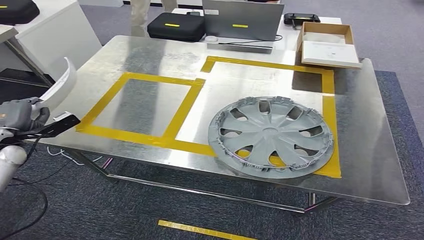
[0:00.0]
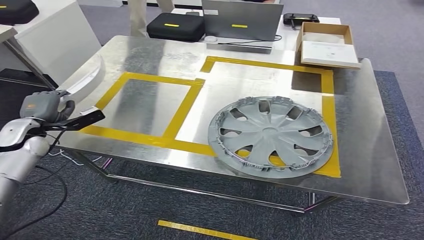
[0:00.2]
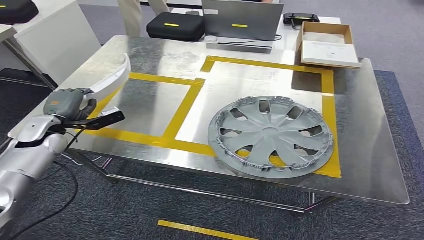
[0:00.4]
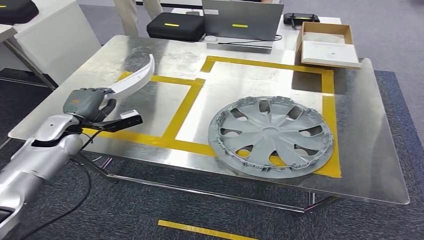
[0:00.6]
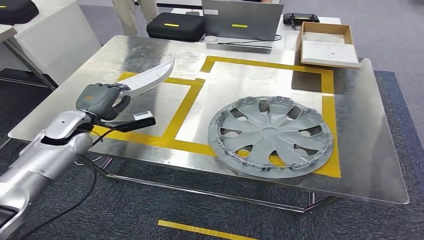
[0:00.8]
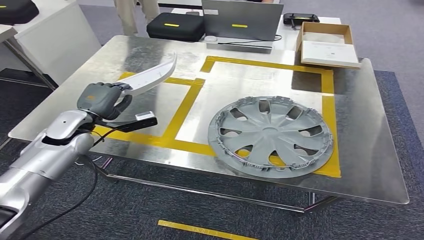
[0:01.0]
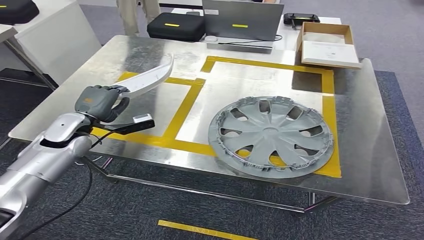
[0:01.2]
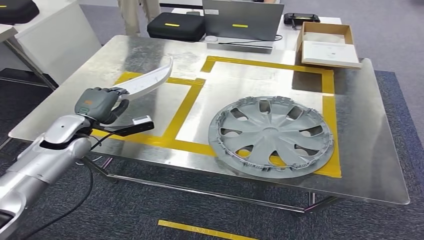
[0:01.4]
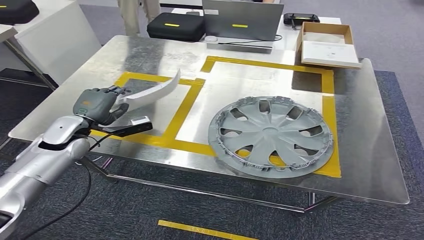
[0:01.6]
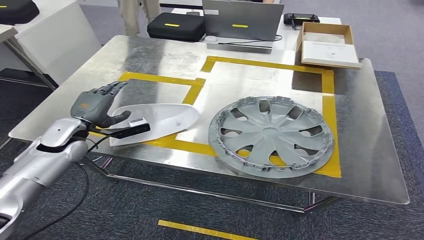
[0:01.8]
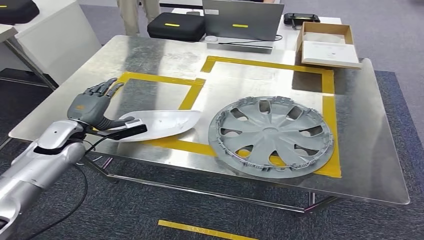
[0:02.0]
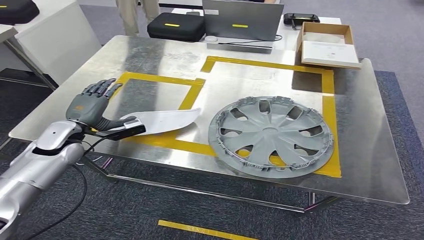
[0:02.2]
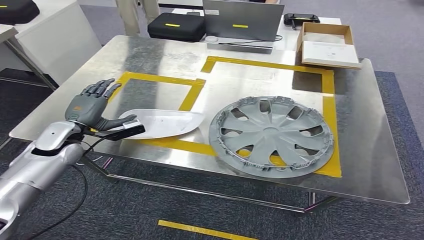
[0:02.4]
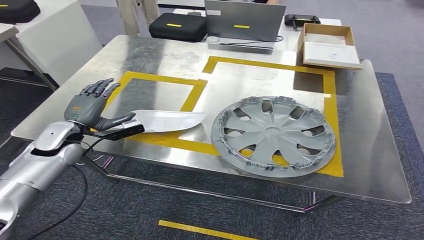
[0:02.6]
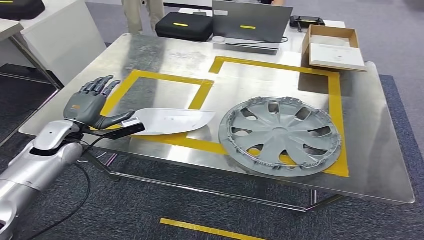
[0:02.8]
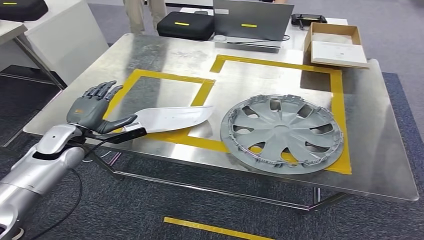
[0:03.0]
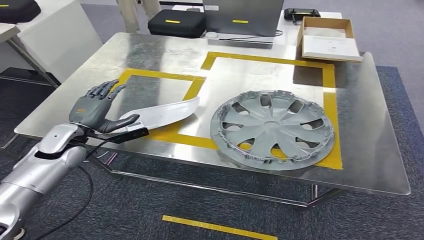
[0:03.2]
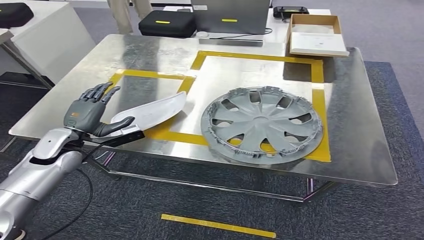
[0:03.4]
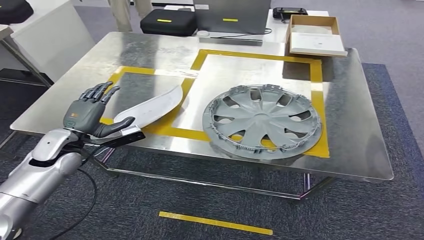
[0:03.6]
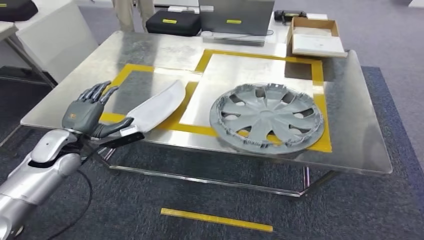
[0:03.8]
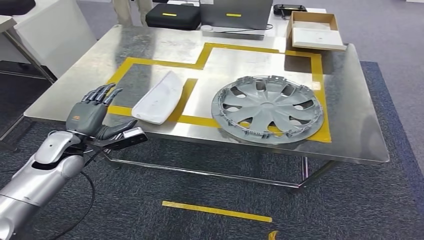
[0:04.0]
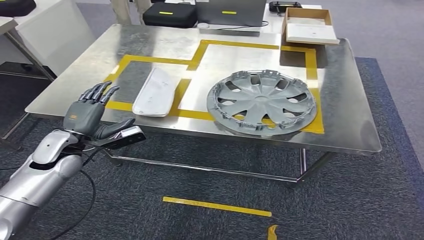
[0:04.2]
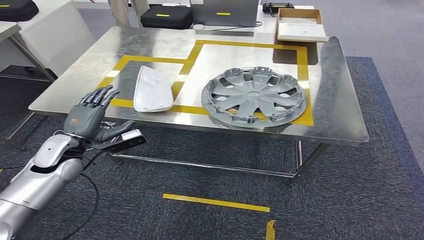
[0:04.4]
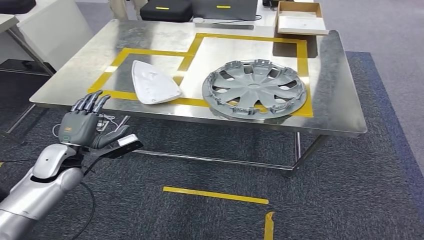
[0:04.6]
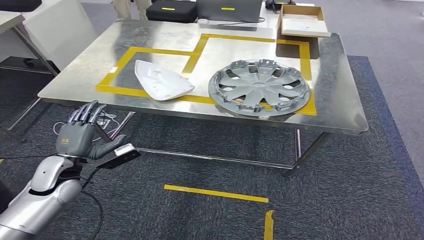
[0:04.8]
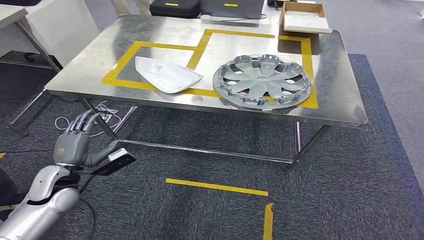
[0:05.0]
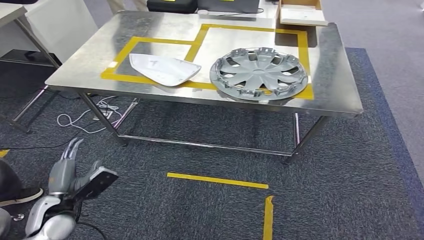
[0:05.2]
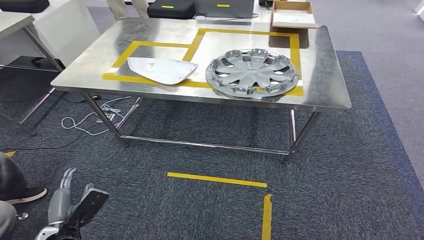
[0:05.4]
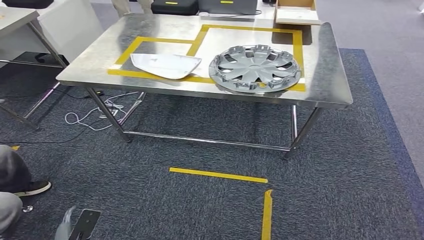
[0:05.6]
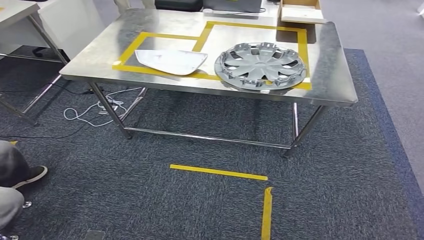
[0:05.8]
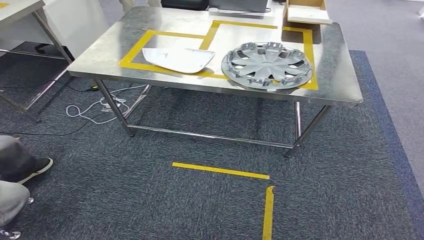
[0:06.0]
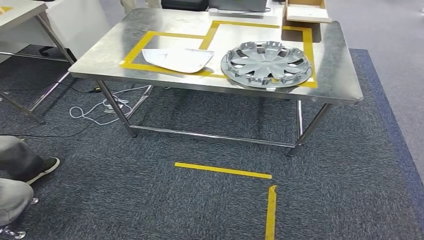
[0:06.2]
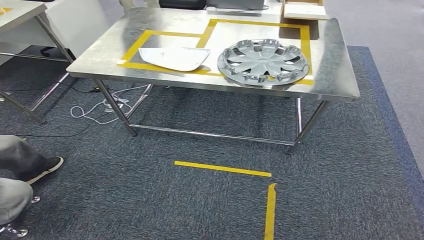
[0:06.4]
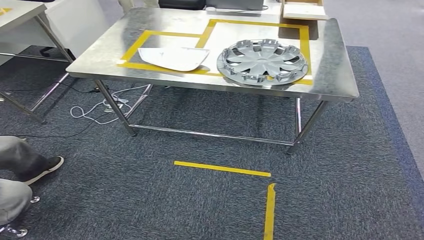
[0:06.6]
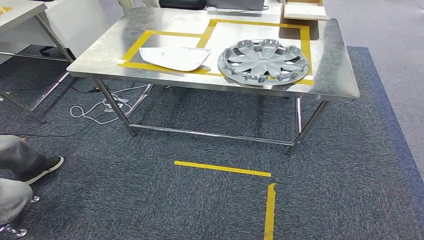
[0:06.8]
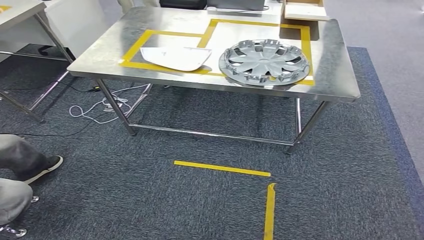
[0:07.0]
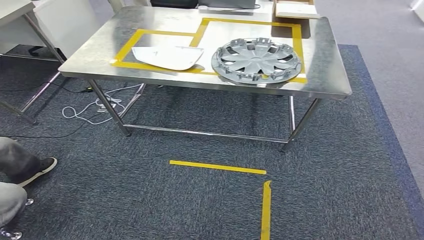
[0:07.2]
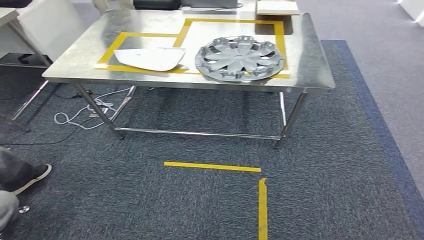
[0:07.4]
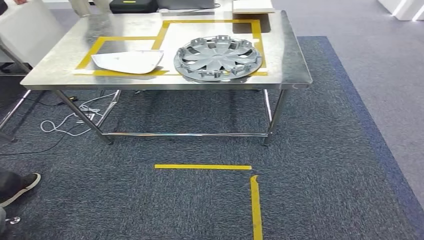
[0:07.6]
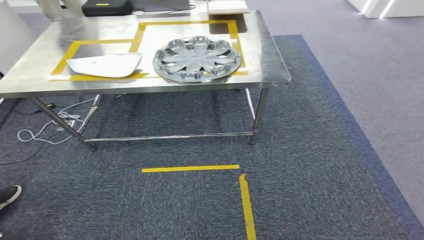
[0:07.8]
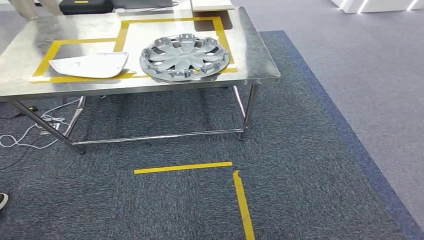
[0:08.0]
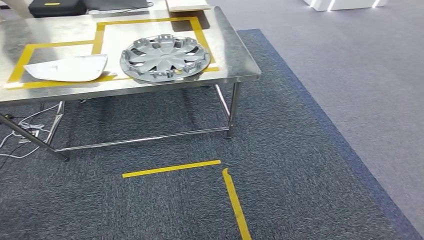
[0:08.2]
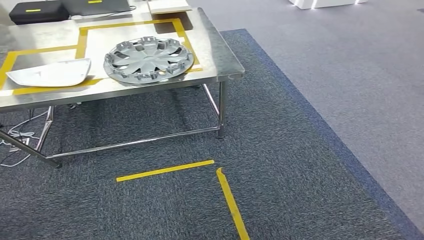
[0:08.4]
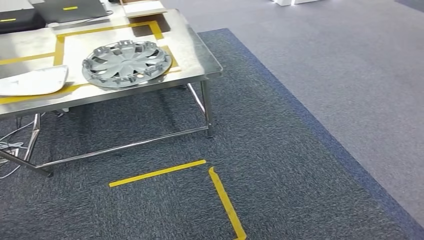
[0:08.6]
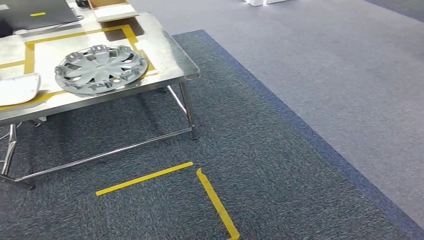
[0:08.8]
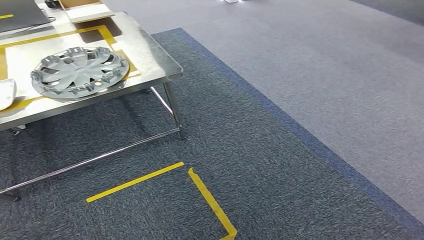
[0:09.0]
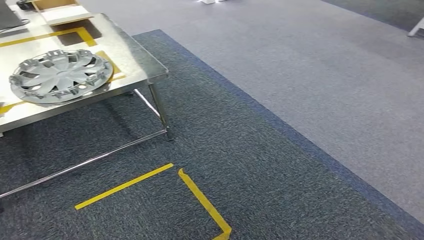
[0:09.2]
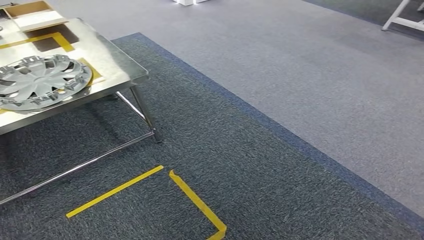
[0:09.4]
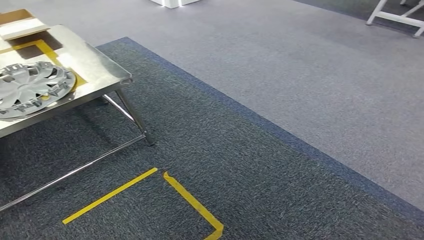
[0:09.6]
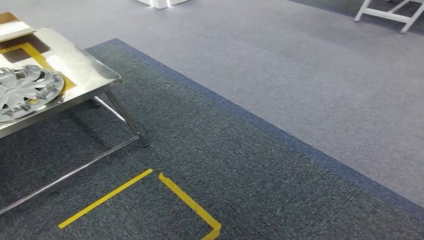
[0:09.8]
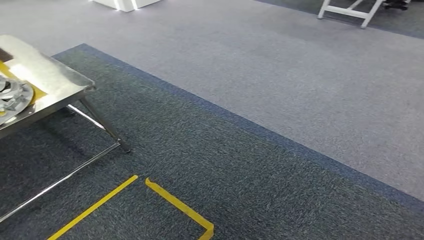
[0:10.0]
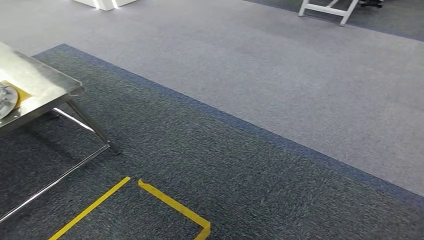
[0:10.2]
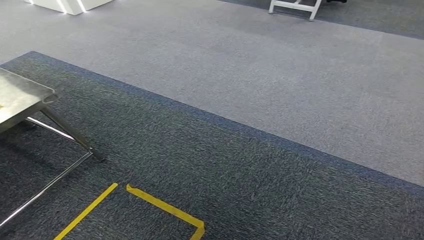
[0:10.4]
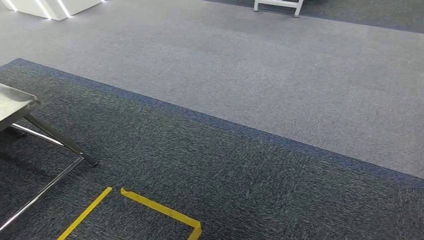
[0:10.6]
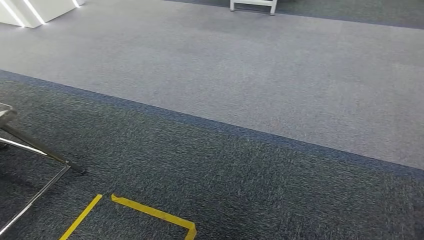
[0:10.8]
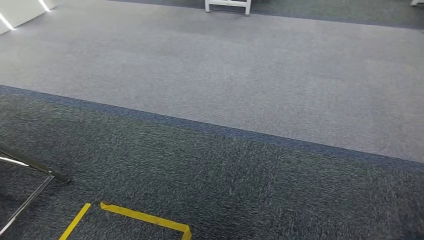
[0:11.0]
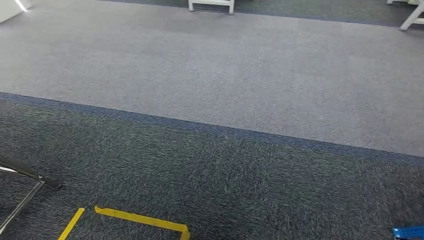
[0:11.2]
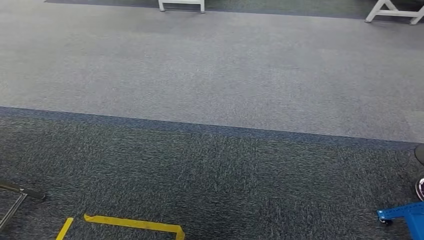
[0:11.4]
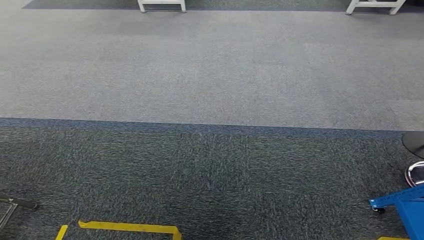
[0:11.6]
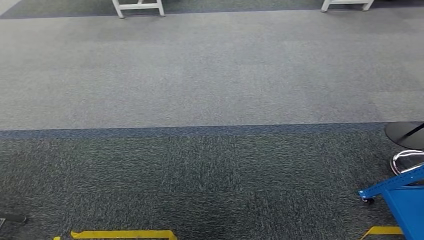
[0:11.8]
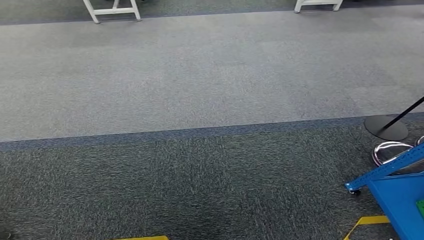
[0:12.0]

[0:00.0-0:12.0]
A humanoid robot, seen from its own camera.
Step, 0:00.0 to 0:03.8: Insert the small component into the corresponding slot on the workbench.
0:00.0 to 0:01.6: The left hand travels to the right by approximately 15 cm.

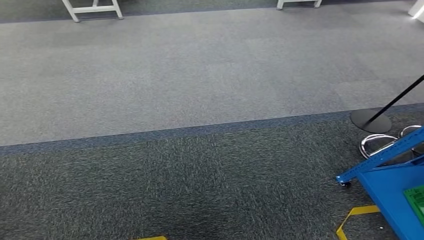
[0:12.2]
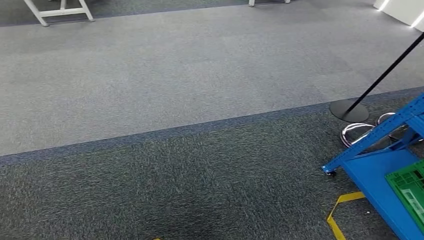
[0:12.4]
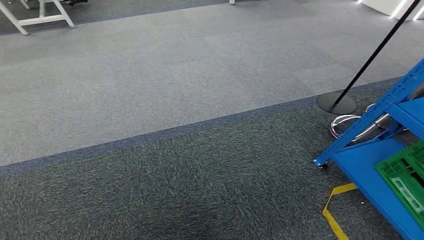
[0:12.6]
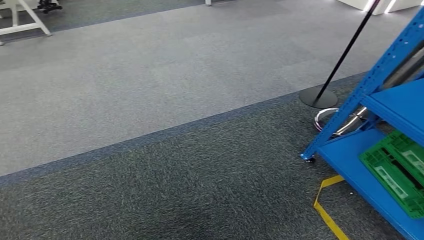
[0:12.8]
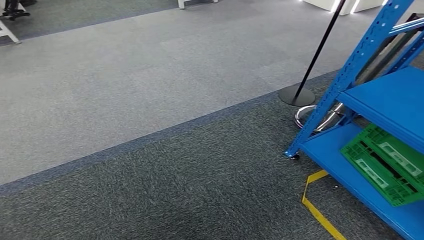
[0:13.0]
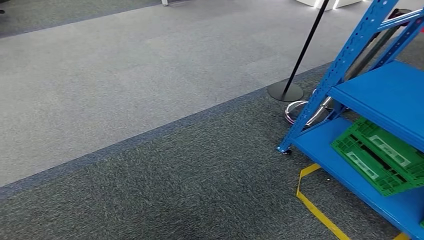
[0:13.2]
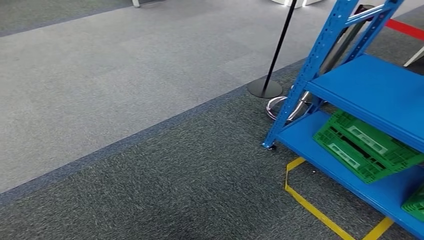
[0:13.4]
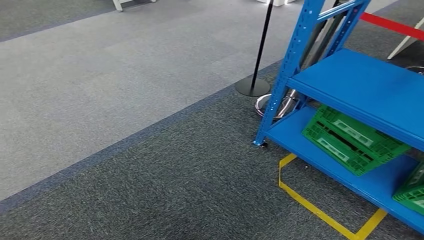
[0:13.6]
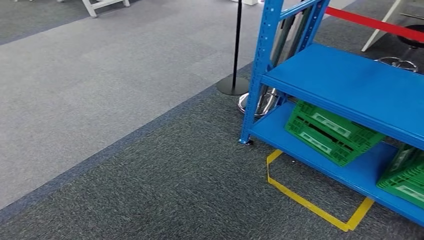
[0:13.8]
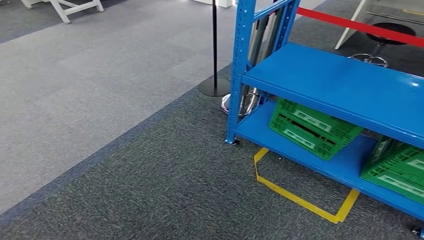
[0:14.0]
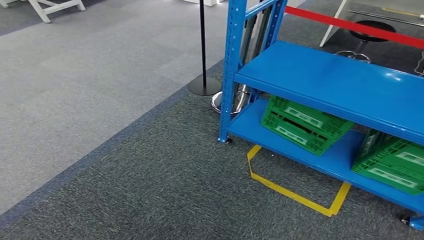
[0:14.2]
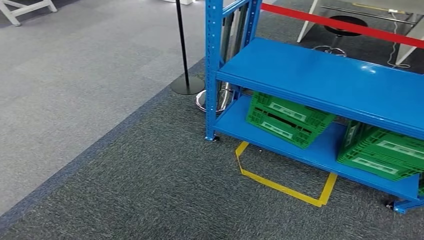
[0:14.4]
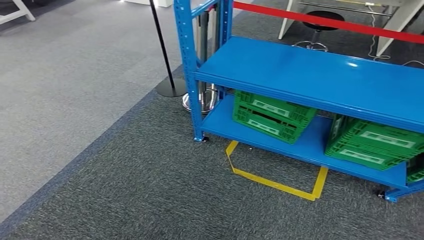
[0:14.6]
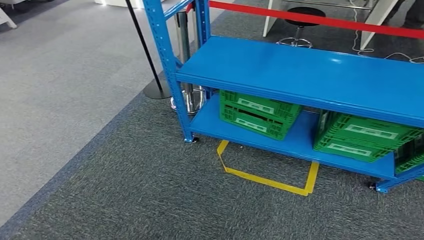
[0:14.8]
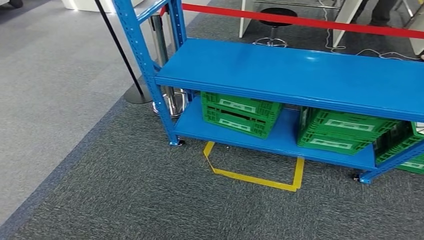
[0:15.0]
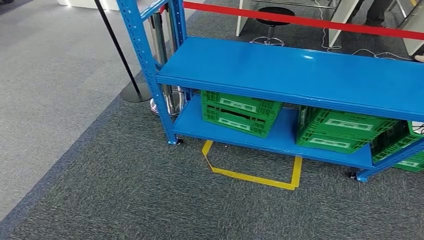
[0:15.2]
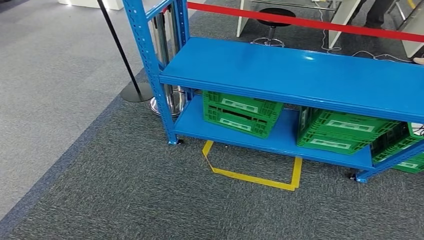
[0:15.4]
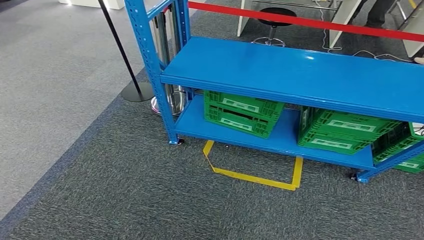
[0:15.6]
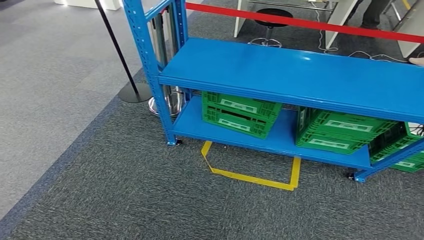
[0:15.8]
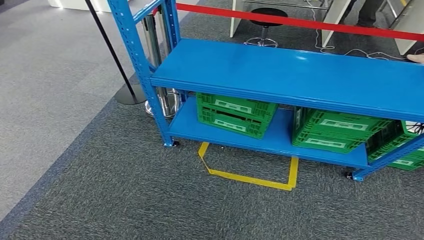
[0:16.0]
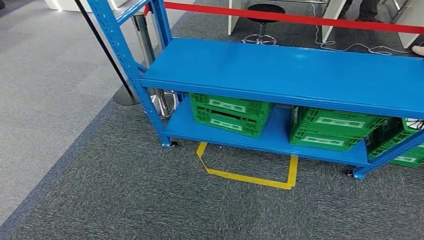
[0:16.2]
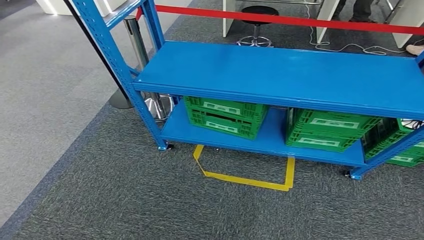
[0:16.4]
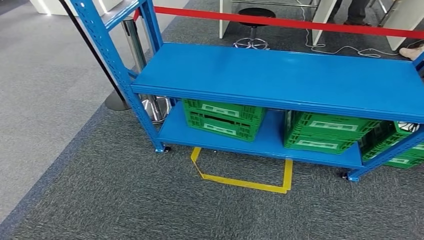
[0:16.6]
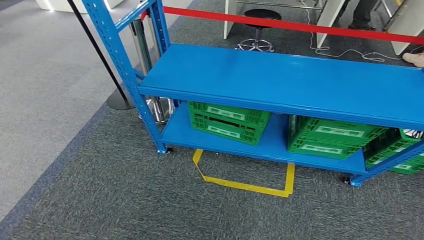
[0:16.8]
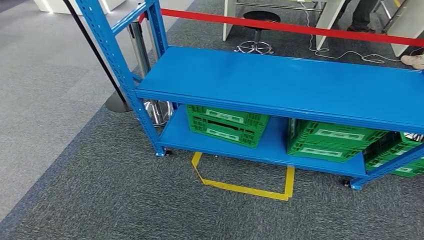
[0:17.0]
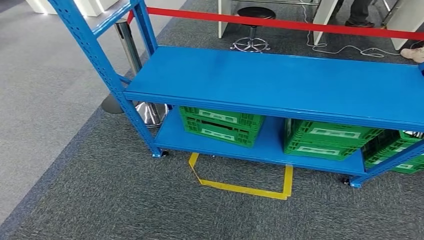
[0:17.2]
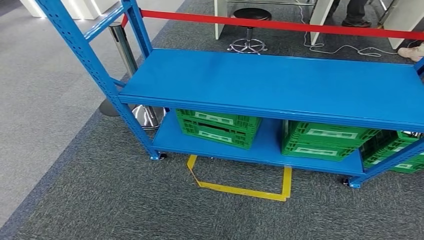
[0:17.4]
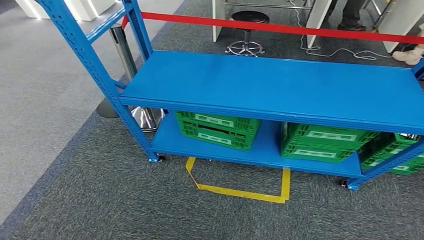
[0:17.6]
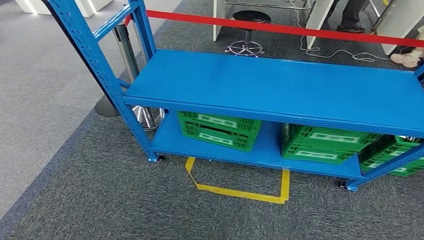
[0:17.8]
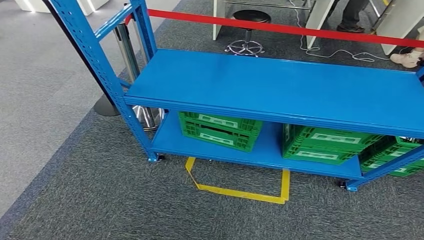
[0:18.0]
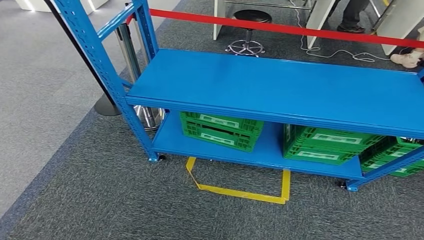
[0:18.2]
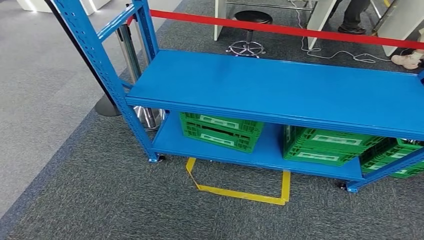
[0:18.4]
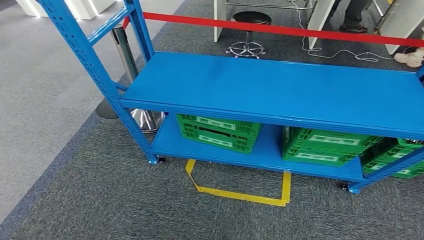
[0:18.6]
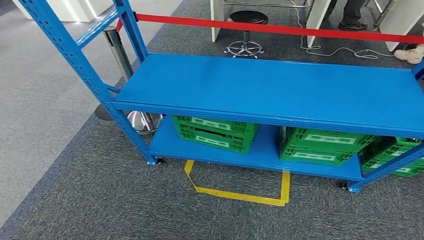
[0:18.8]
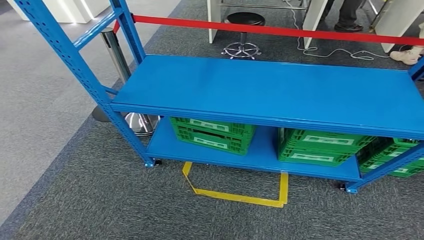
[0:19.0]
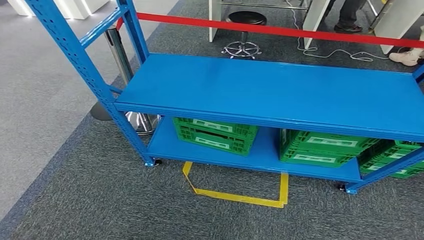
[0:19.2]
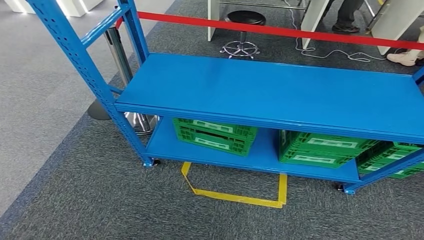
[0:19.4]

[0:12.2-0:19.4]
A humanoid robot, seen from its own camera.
0:18.0 to 0:19.4: There are only small adjustments of the hands.
